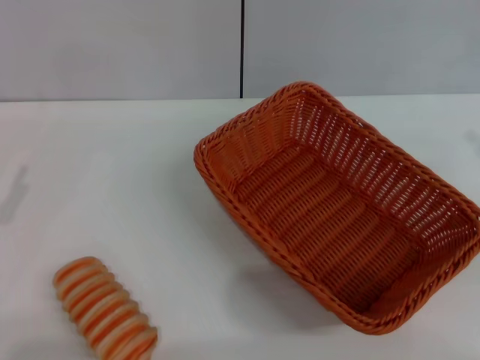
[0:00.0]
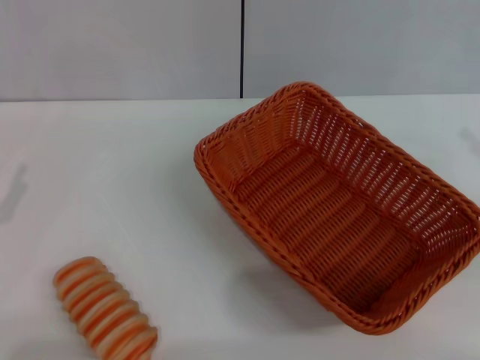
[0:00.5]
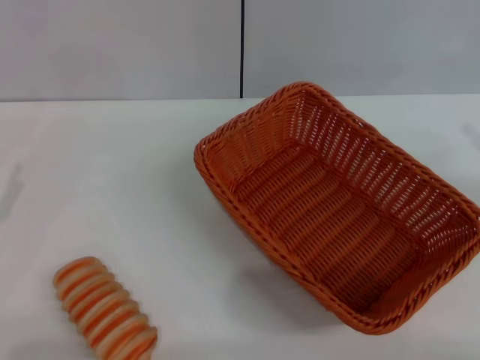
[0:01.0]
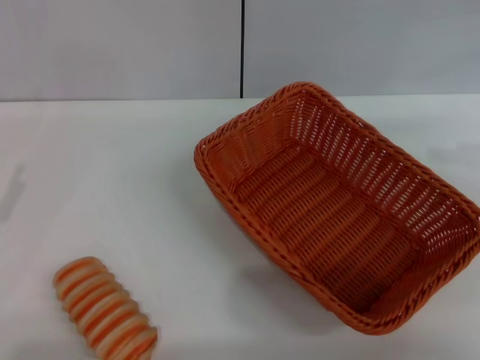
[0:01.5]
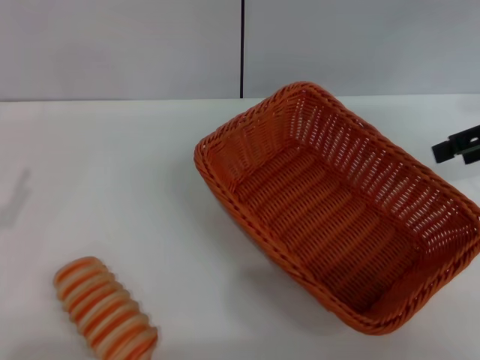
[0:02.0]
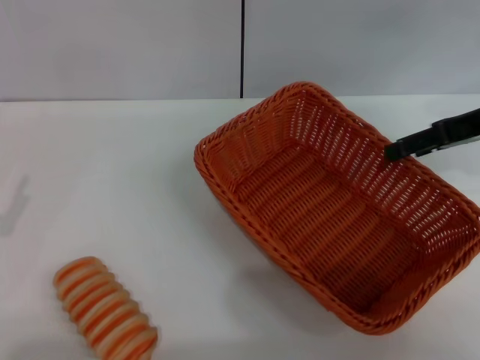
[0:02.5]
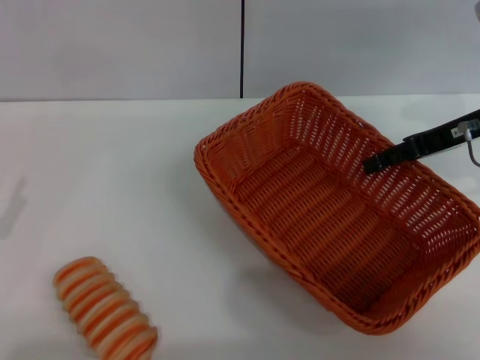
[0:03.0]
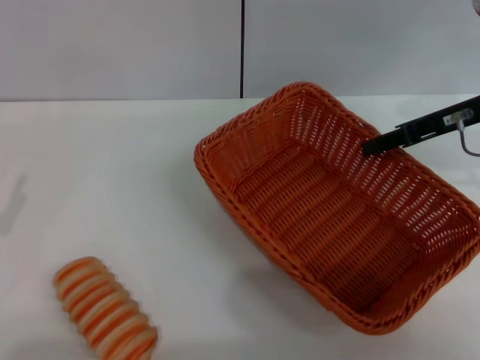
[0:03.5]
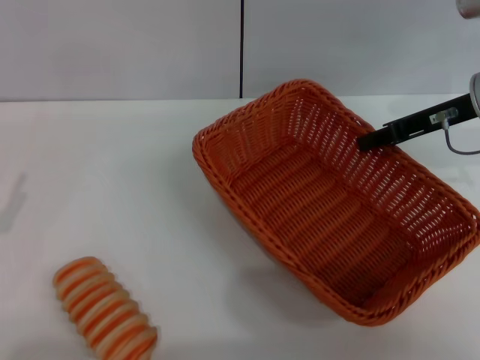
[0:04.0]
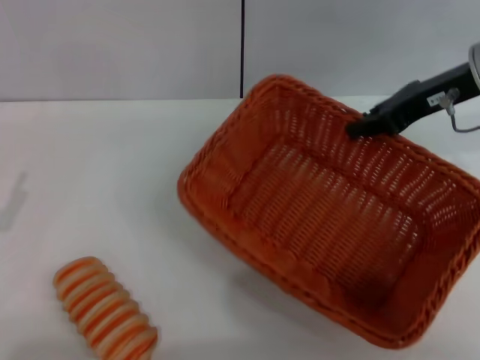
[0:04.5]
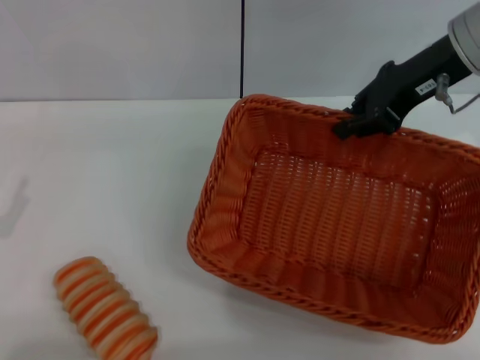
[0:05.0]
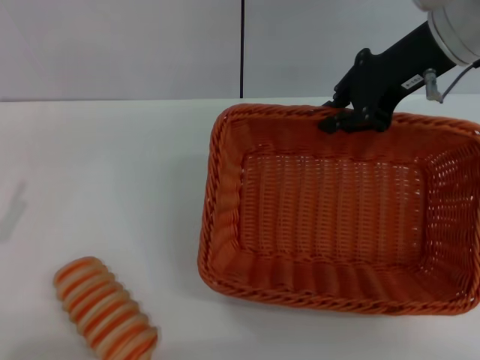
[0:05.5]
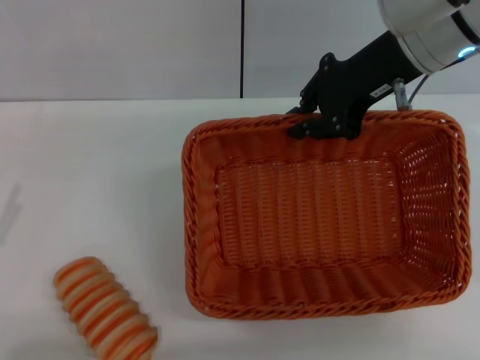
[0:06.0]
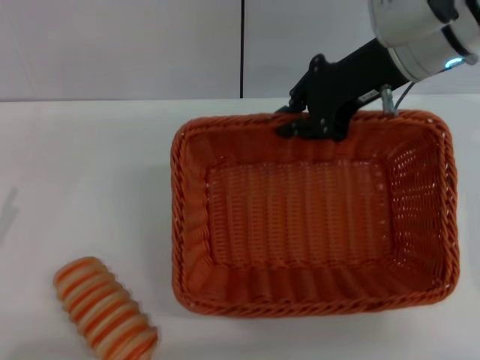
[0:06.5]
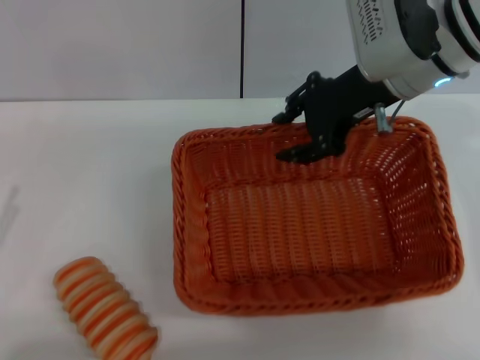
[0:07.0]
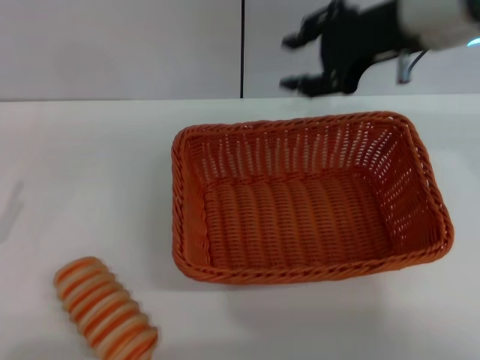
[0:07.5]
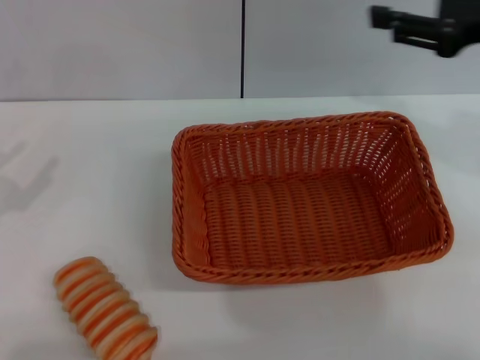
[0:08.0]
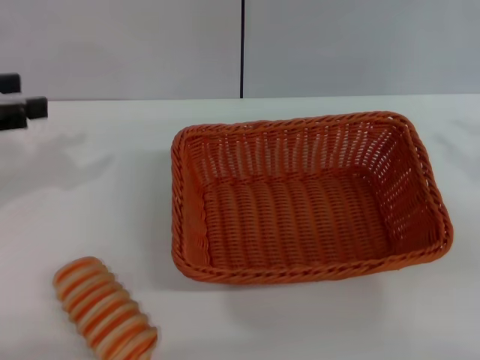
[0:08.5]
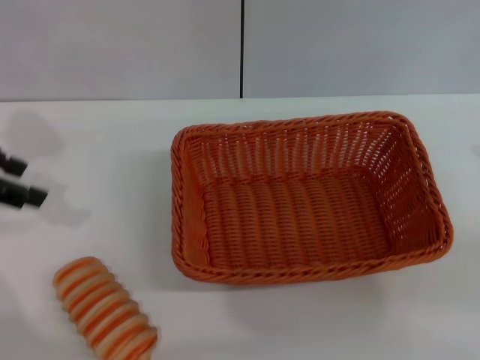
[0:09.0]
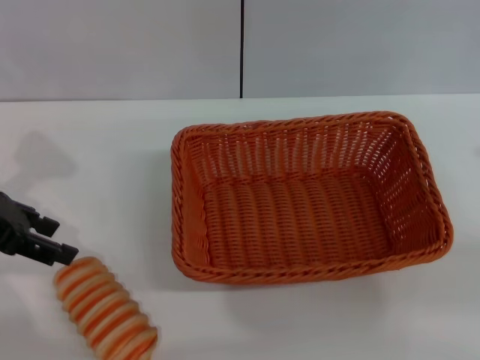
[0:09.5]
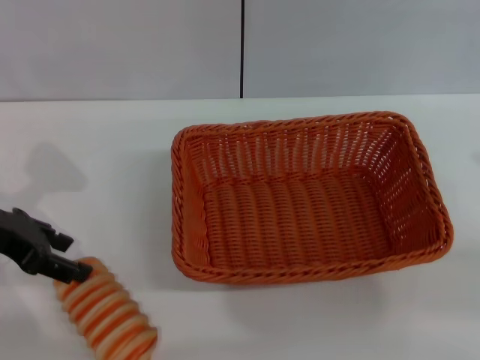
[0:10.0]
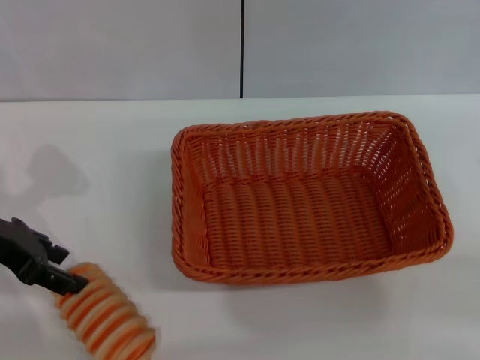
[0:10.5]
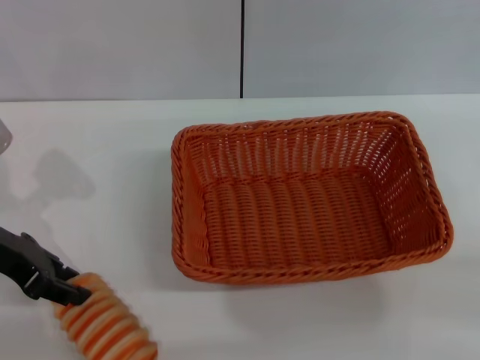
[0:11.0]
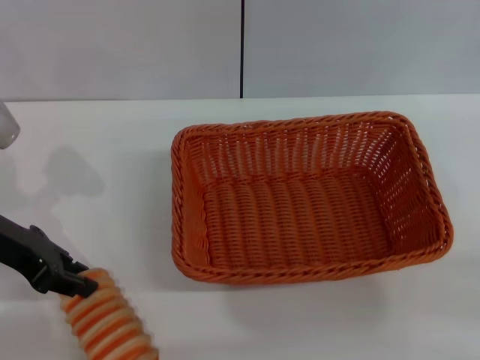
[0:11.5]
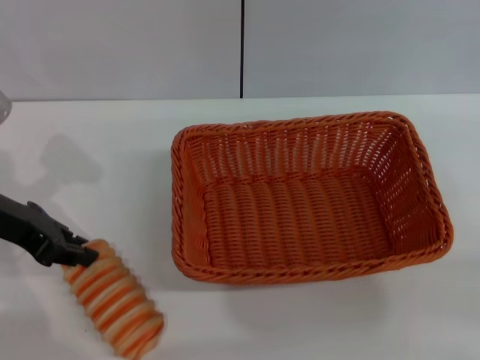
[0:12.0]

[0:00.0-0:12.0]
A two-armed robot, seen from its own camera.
Step, 0:00.0 to 0:04.5: Pick up the light basket with the right gripper.
Step, 0:05.0 to 0:07.0: Place the light basket in the center of view with the right gripper.
0:00.0 to 0:02.0: The right gripper moves forward, to the left and upward, roughly 15 cm.
0:02.0 to 0:04.0: The right gripper is displaced to the left and downward by approximately 10 cm, and closes.
0:04.0 to 0:06.0: The right gripper moves to the left and upward, approximately 10 cm.
0:06.0 to 0:08.0: The right gripper goes about 15 cm to the right and backward, and opens. The left gripper is displaced upward and forward by roughly 10 cm.
0:08.0 to 0:10.0: The right gripper shifts about 20 cm to the right, backward and downward. The left gripper is displaced forward and to the right by approximately 15 cm.
0:10.0 to 0:12.0: The left gripper closes.

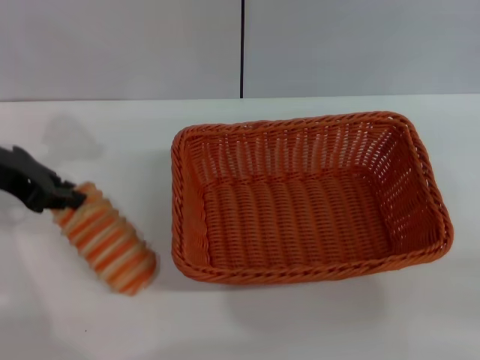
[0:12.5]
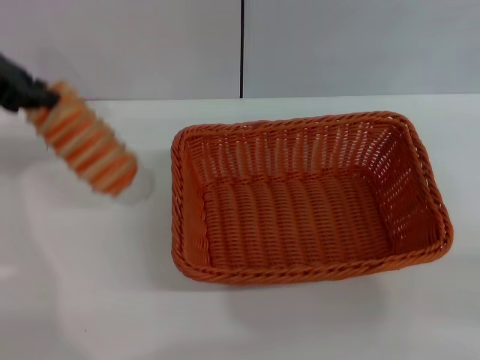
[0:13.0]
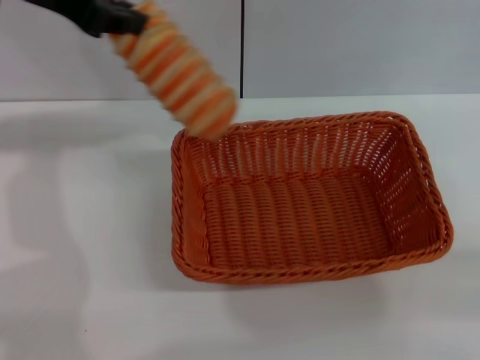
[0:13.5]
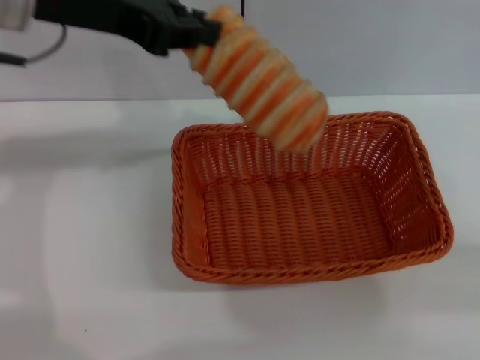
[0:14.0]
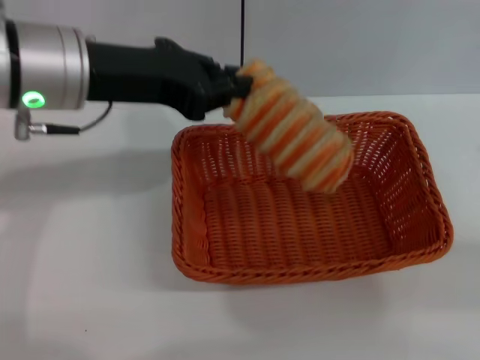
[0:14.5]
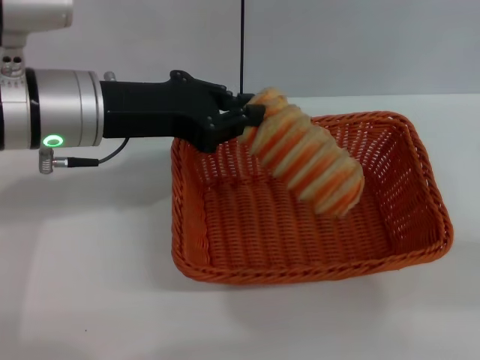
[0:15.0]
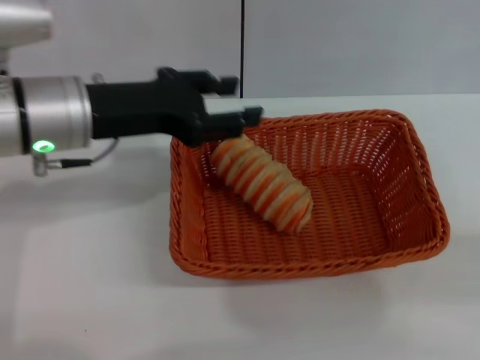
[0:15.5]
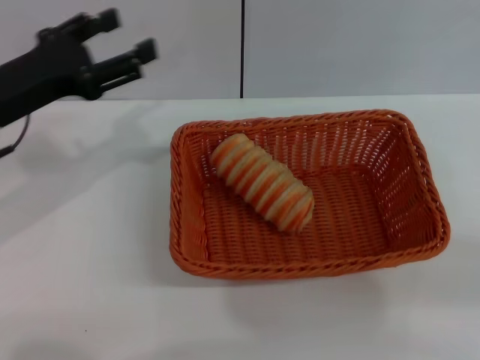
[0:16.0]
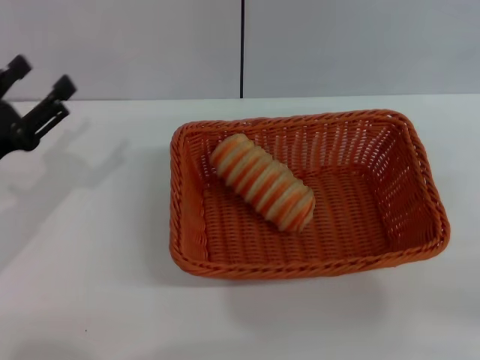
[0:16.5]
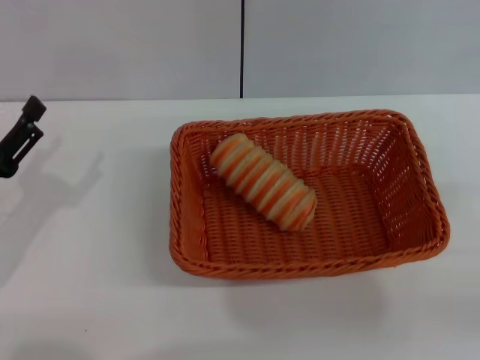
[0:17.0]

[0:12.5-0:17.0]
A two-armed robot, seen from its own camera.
Step, 0:13.0 to 0:15.0: Place the long bread into the light basket with the left gripper.
0:12.5 to 0:14.5: The left gripper moves to the right and upward, about 10 cm.
0:14.5 to 0:17.0: The left gripper moves downward, to the left and backward, approximately 25 cm, and opens up, while the right gripper heads downward, covering some 5 cm.

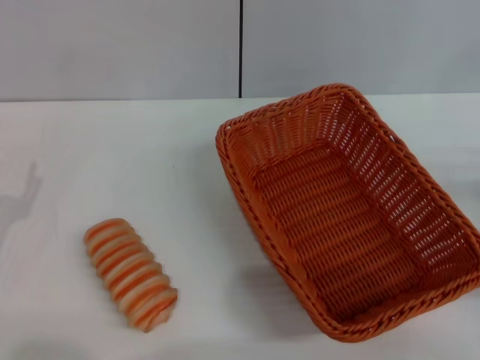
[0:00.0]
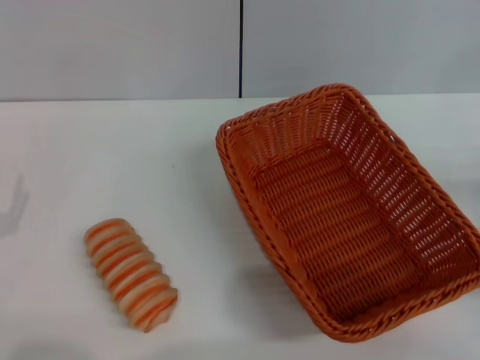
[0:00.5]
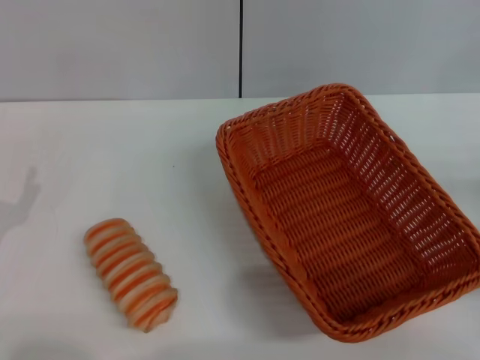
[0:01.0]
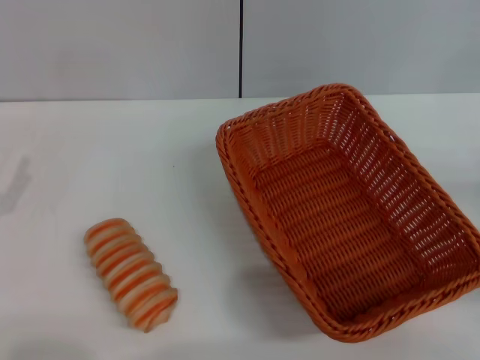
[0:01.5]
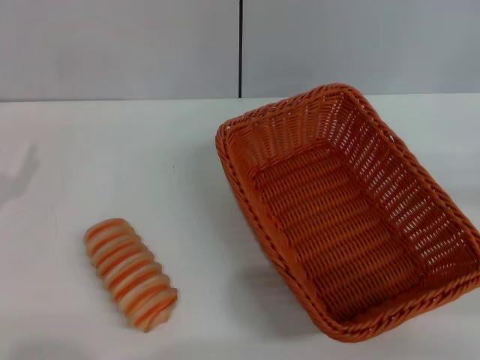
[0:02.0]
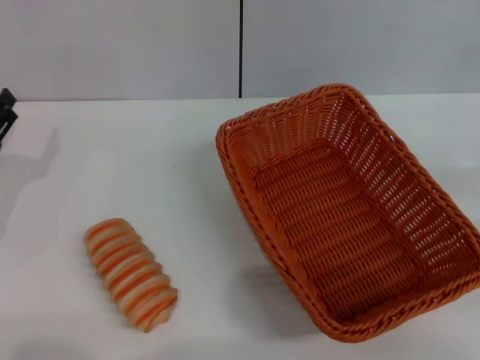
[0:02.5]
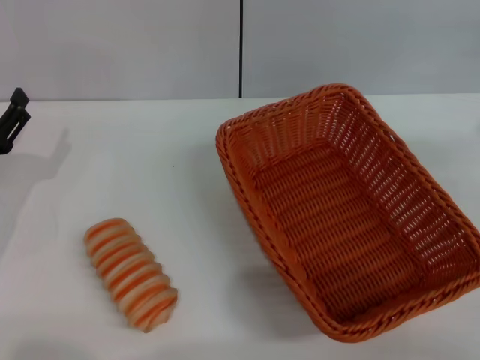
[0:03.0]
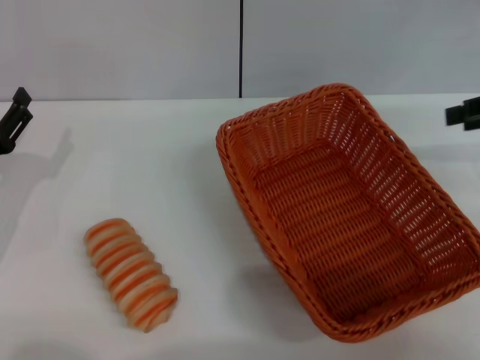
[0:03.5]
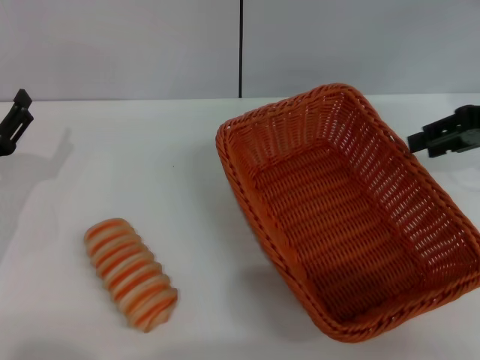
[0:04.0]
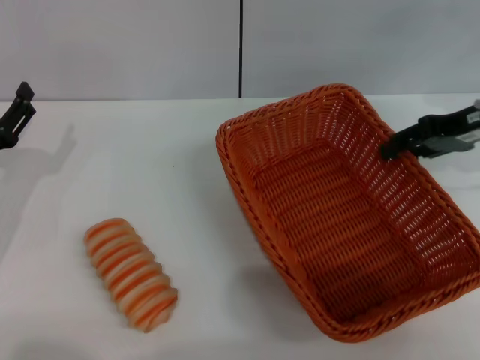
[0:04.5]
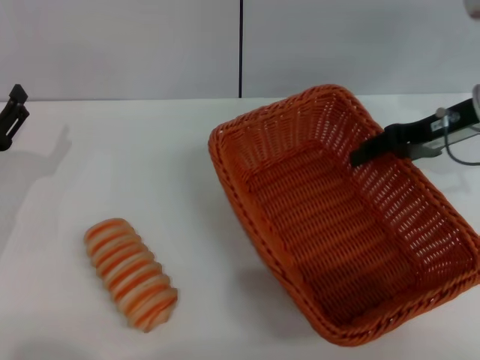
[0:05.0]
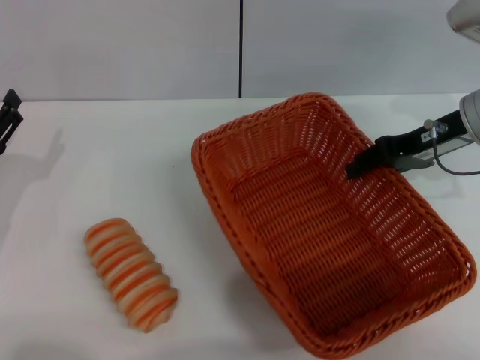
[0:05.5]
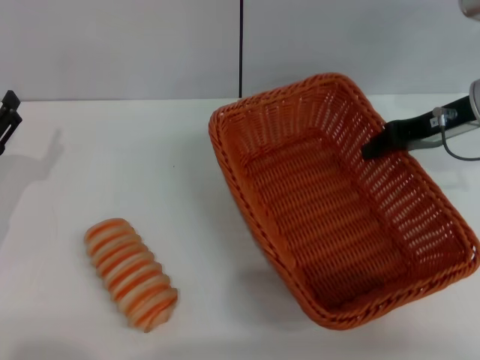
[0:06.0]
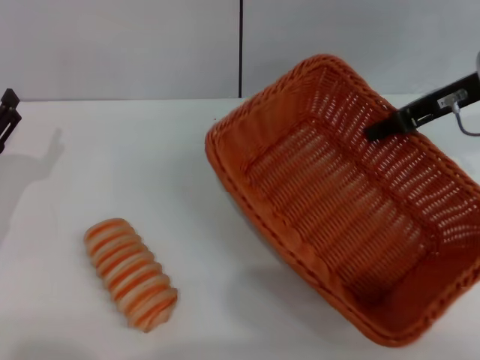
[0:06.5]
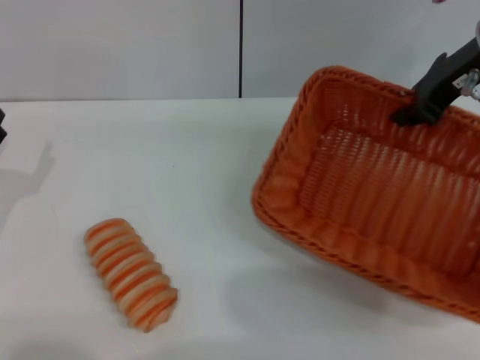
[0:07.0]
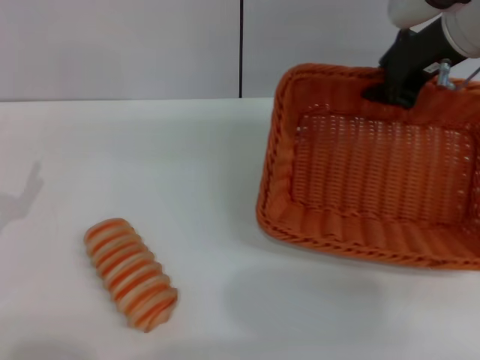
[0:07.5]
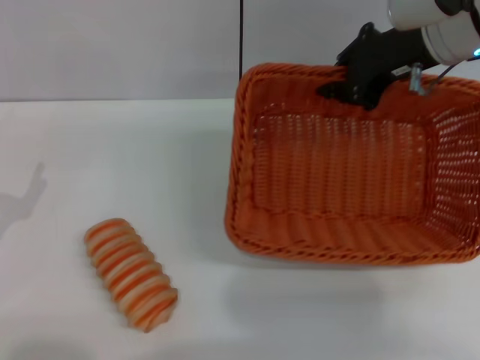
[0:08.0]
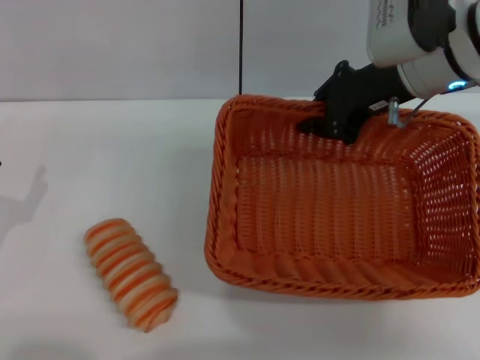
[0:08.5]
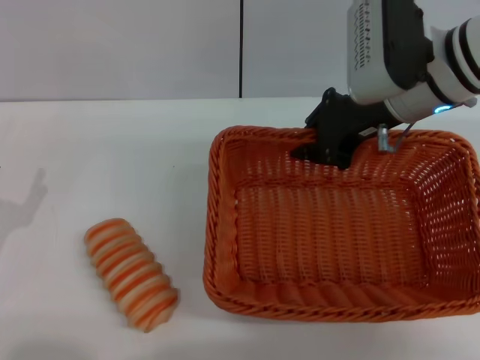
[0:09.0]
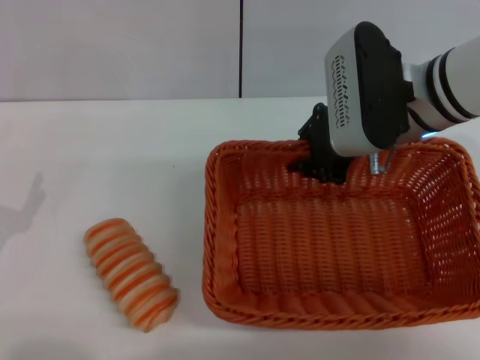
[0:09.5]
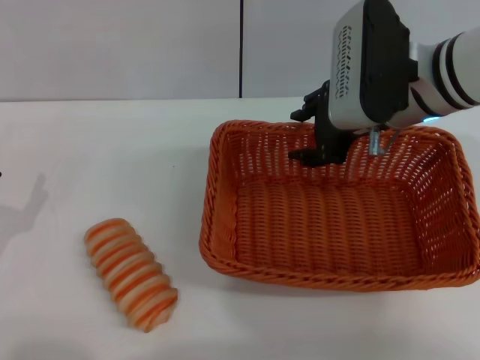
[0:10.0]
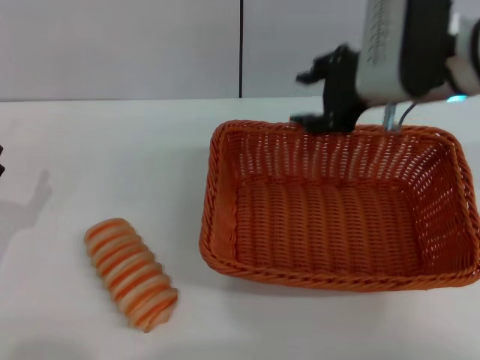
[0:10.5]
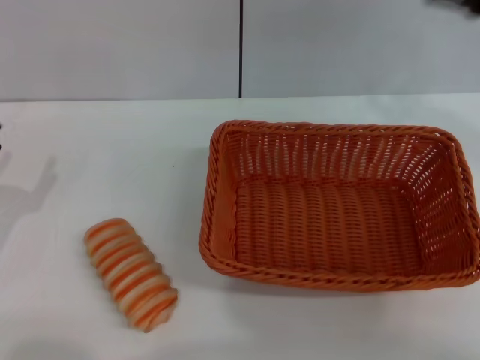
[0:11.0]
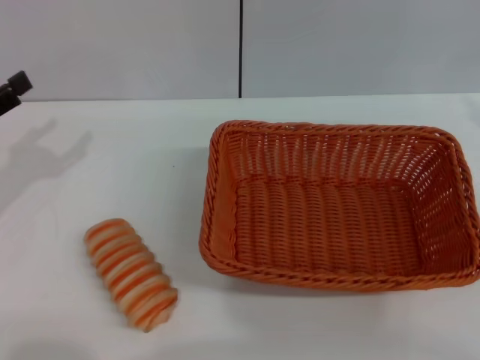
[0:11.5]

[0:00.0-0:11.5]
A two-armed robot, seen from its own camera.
Step, 0:00.0 to 0:06.5: Pick up the light basket with the right gripper.
Step, 0:07.0 to 0:10.5: Place the light basket in the center of view with the right gripper.
0:02.0 to 0:04.0: The right gripper heads forward, upward and to the left, covering some 20 cm.
0:04.0 to 0:06.0: The right gripper heads to the left, covering roughly 5 cm, and closes.
0:06.0 to 0:07.5: The right gripper heads upward and to the left, covering roughly 10 cm. Meanwhile the left gripper shifts approximately 5 cm backward.
0:07.5 to 0:09.5: The right gripper travels downward by roughly 5 cm.
0:09.5 to 0:11.5: The left gripper goes approximately 15 cm upward and forward, while the right gripper goes some 25 cm to the right and backward, and opens its fingers.
